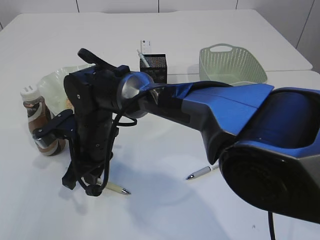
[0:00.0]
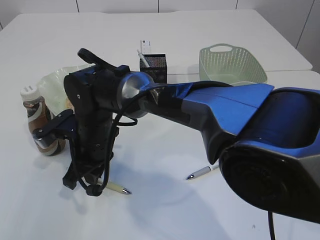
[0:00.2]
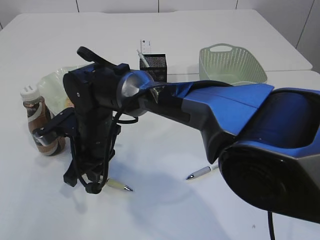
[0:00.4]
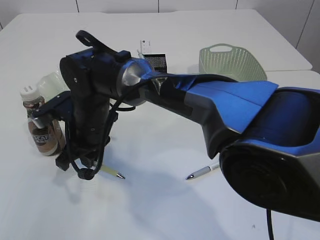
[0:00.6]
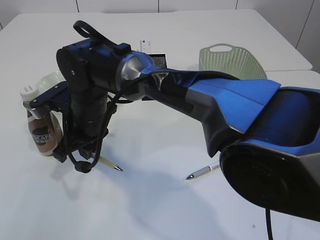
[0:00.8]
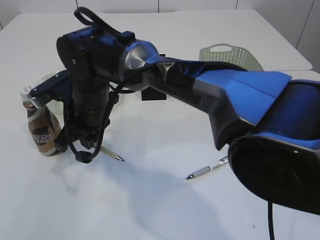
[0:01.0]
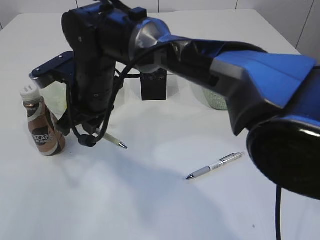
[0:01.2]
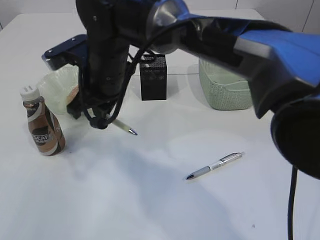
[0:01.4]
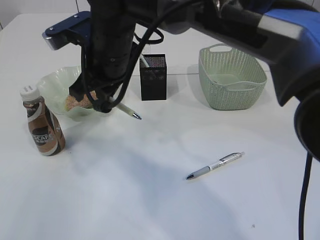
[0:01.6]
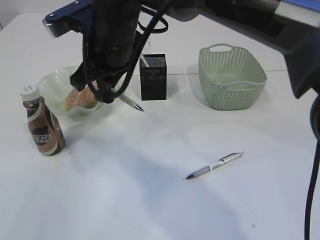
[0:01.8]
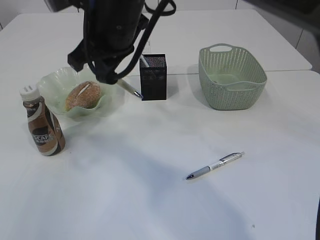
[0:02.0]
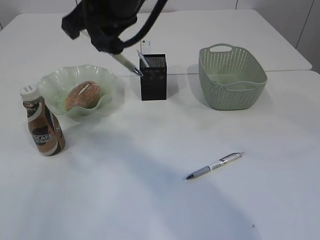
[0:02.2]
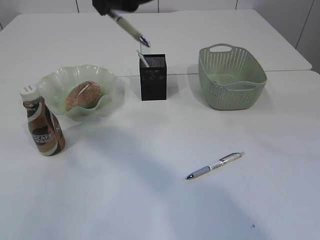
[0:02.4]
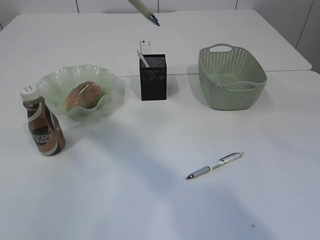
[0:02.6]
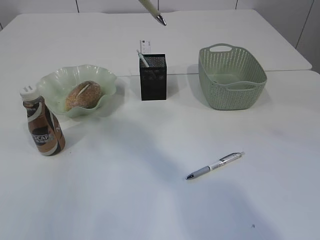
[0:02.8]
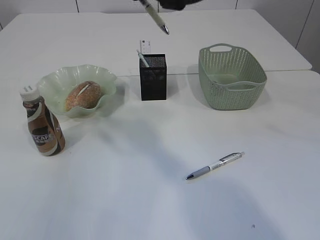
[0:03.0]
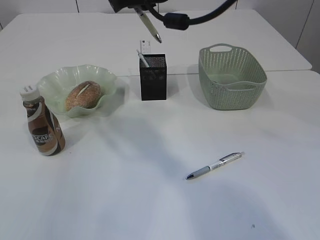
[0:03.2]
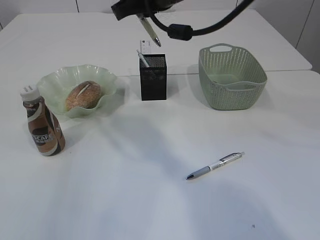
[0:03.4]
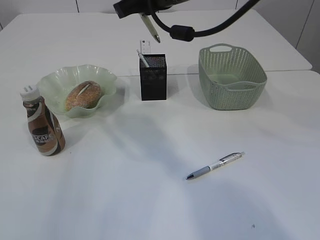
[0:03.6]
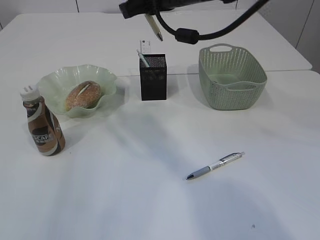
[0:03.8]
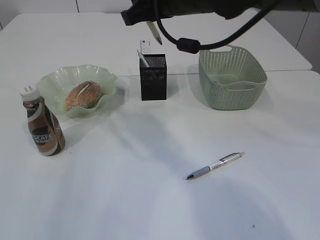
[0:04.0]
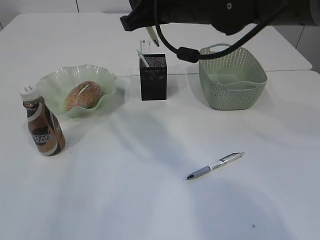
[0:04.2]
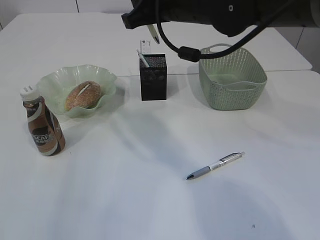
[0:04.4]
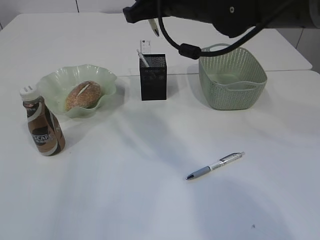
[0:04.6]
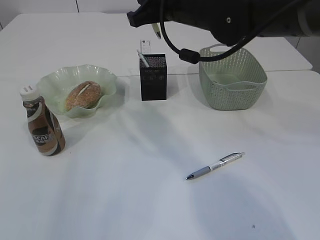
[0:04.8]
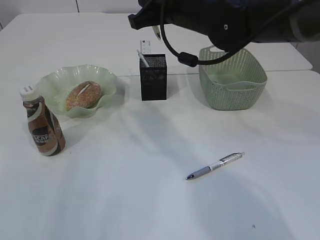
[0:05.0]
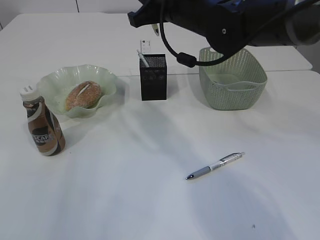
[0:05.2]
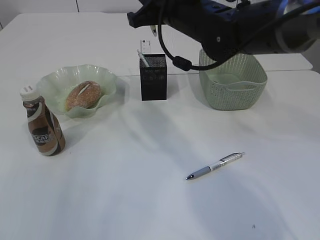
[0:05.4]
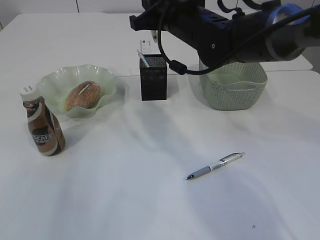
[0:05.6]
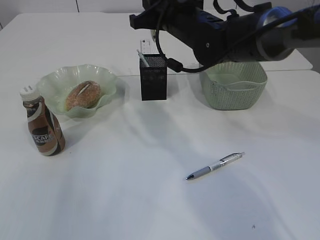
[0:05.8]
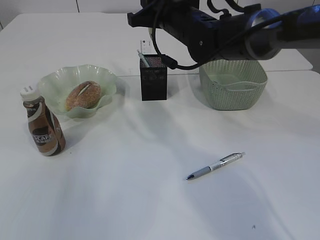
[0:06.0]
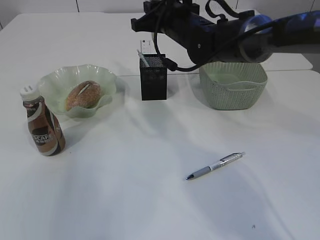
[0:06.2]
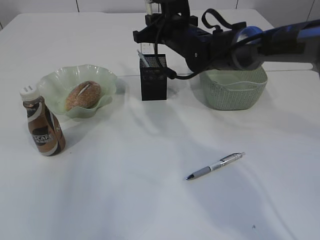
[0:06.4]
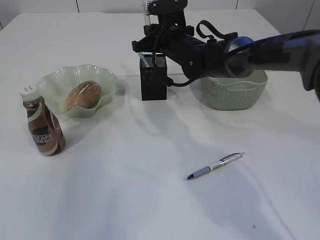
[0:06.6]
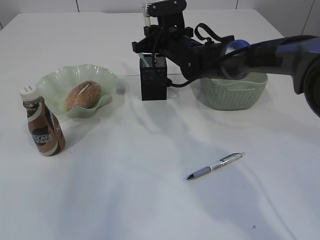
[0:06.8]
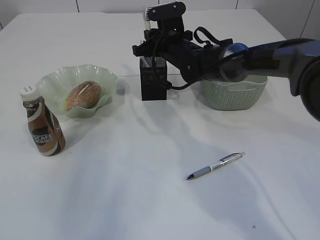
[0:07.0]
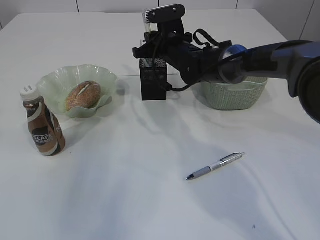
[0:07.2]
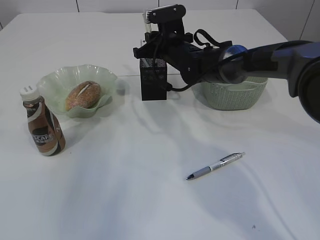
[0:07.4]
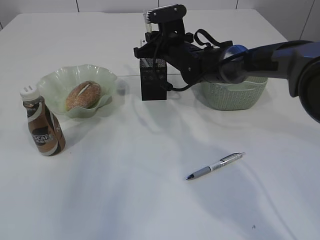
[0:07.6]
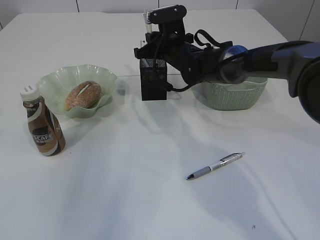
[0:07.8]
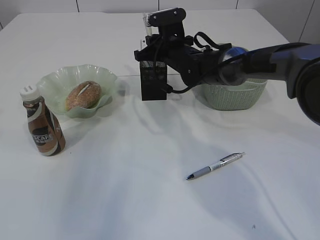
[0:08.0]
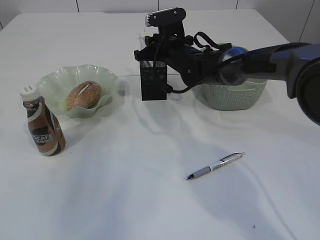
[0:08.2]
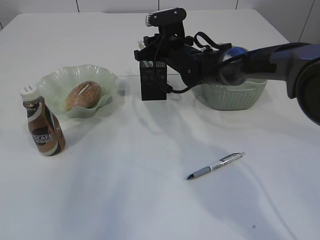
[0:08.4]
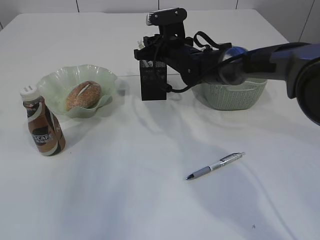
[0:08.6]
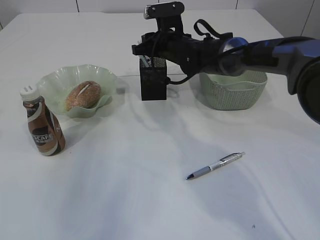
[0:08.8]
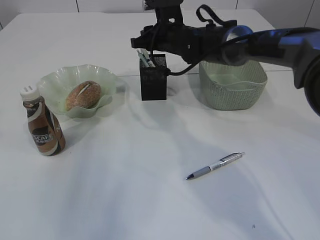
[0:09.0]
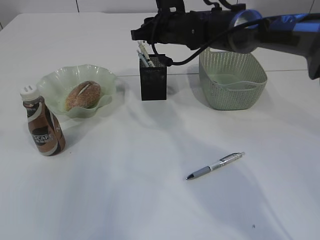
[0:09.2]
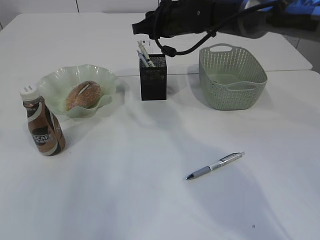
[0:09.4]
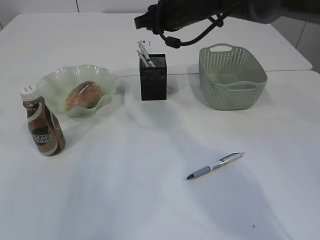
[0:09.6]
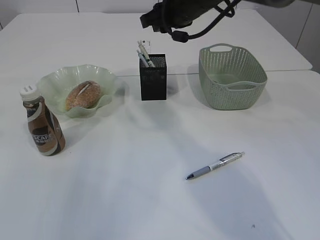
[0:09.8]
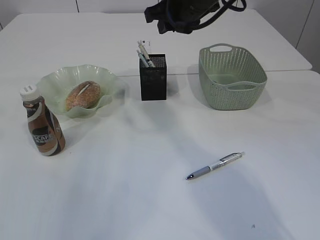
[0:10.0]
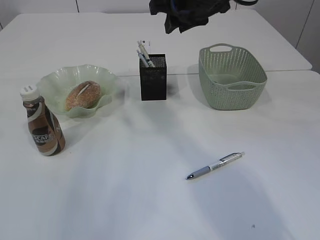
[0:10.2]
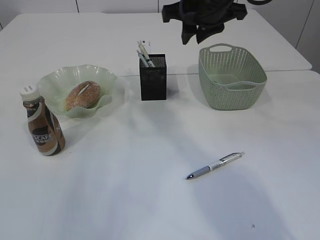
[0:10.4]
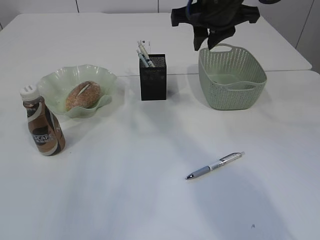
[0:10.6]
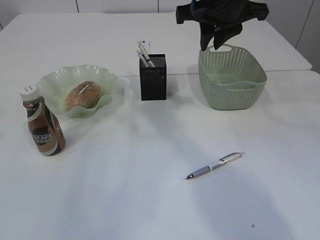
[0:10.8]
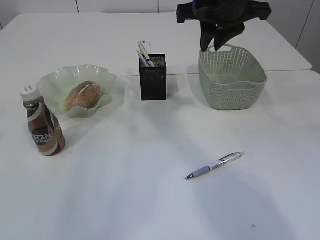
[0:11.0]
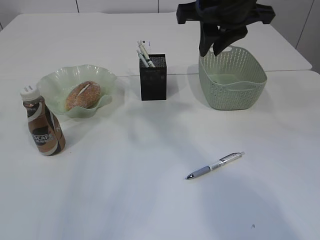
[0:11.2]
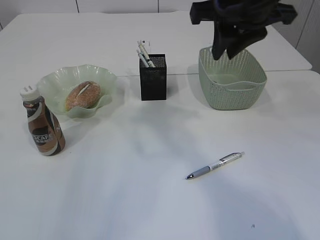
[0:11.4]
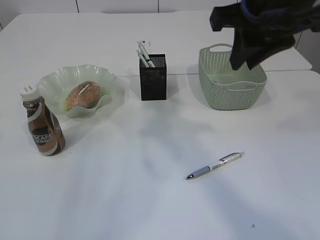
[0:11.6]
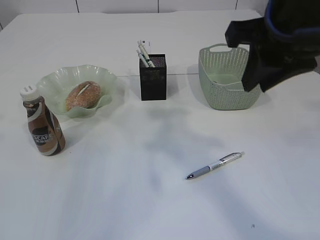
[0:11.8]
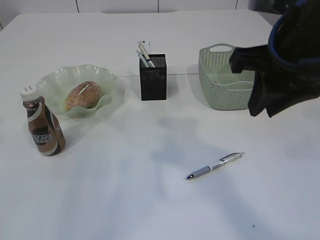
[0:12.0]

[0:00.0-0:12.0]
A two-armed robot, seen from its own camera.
Step, 0:01.6 to 0:09.2: Place the pen into the pen holder.
0:00.0 to 0:01.6: The right gripper is displaced upward by about 10 cm.
0:01.6 to 0:03.0: The right gripper shifts roughly 20 cm upward and to the right.
0:03.0 to 0:04.4: The right gripper shifts roughly 10 cm downward.
0:04.4 to 0:06.0: The right gripper moves forward and downward, some 10 cm.
0:06.0 to 0:07.6: The right gripper goes some 10 cm downward and forward.
0:07.6 to 0:09.0: The grippers stay close to where they were, moving slightly.
0:09.0 to 0:10.4: The right gripper goes about 15 cm upward and backward.
0:10.4 to 0:12.0: The right gripper moves backward, roughly 15 cm.

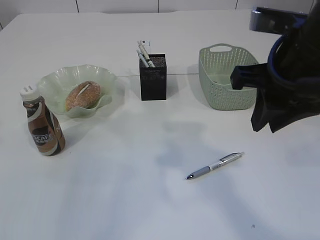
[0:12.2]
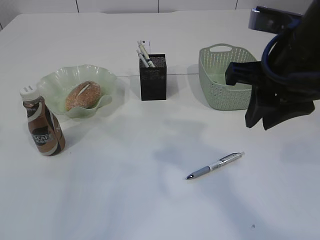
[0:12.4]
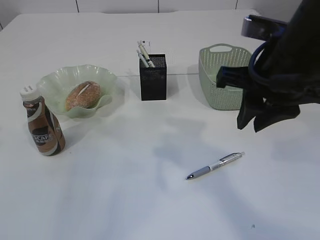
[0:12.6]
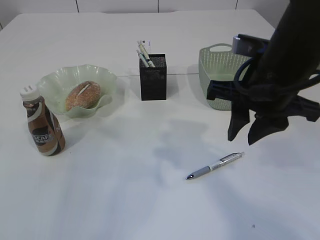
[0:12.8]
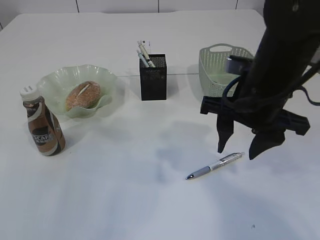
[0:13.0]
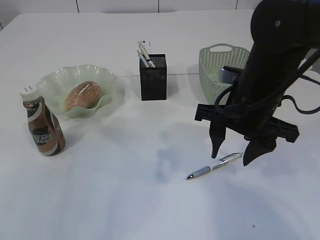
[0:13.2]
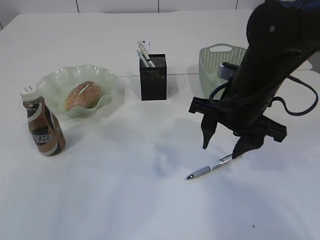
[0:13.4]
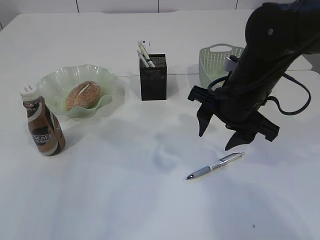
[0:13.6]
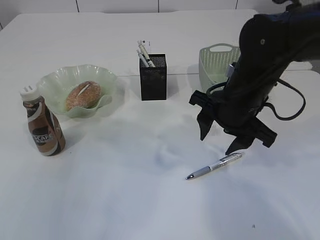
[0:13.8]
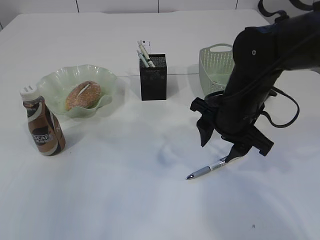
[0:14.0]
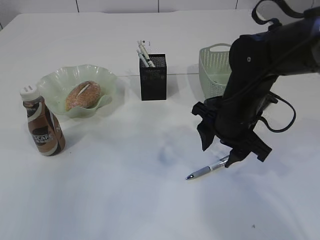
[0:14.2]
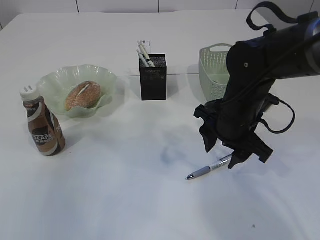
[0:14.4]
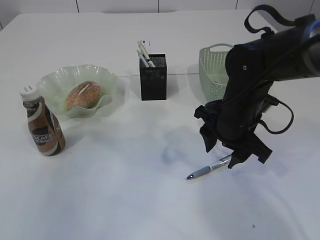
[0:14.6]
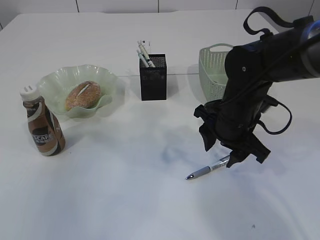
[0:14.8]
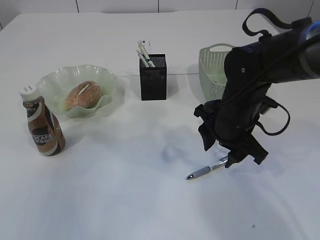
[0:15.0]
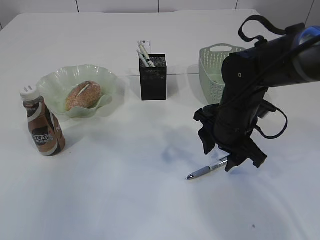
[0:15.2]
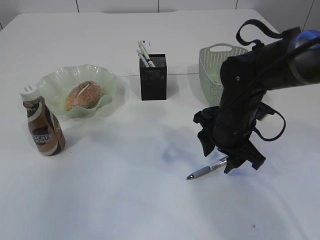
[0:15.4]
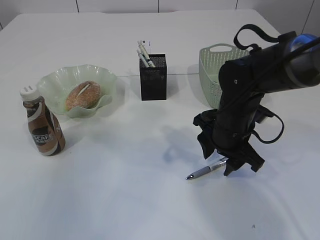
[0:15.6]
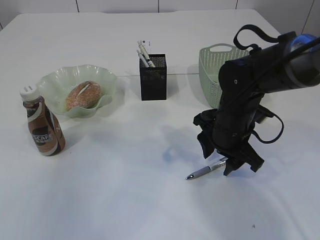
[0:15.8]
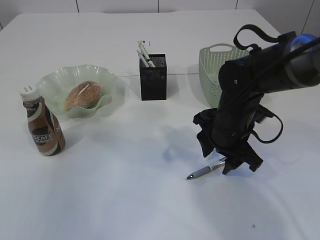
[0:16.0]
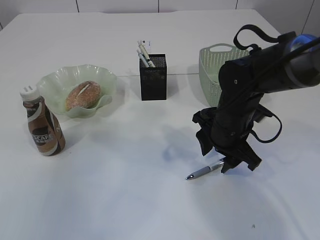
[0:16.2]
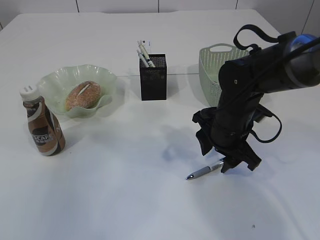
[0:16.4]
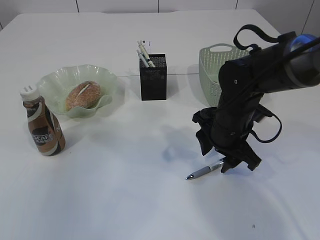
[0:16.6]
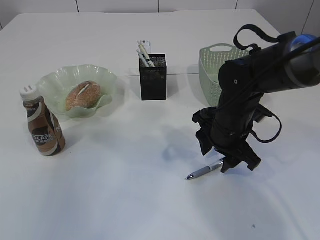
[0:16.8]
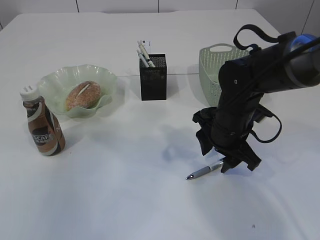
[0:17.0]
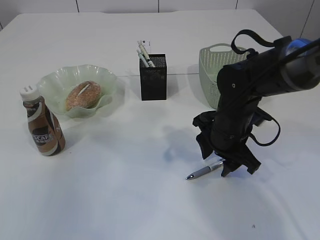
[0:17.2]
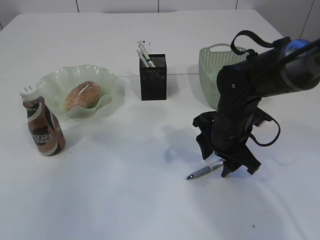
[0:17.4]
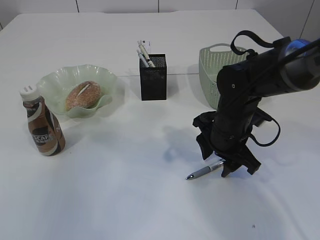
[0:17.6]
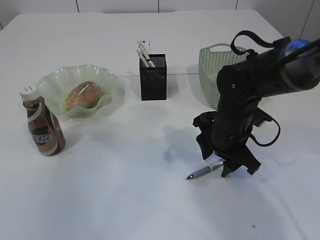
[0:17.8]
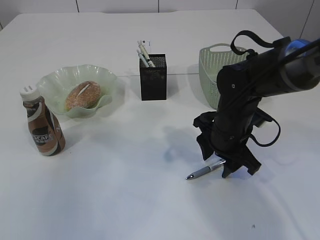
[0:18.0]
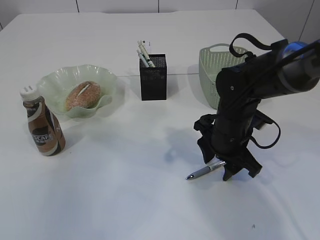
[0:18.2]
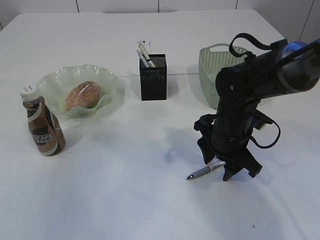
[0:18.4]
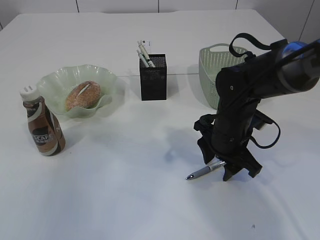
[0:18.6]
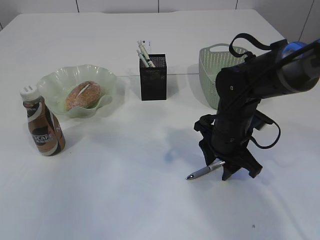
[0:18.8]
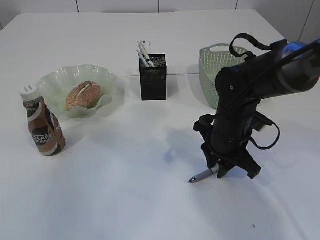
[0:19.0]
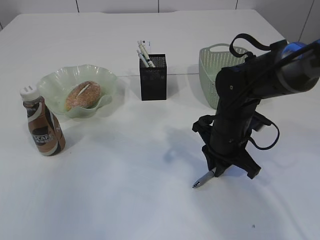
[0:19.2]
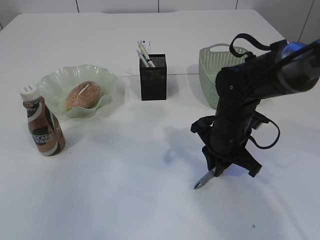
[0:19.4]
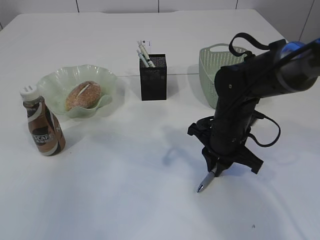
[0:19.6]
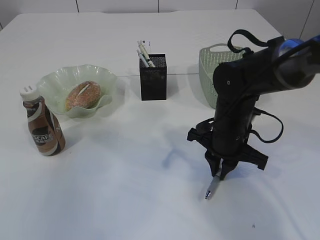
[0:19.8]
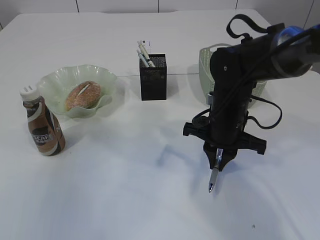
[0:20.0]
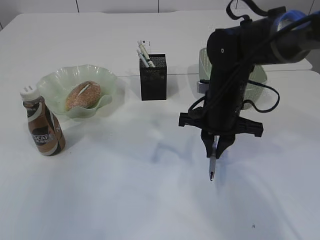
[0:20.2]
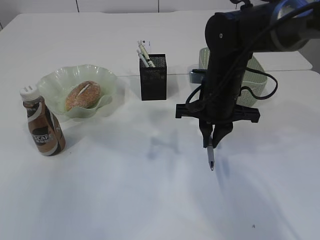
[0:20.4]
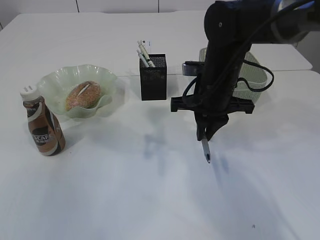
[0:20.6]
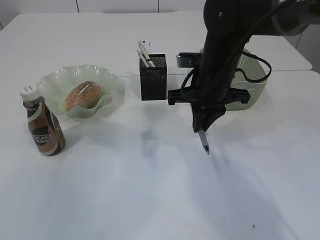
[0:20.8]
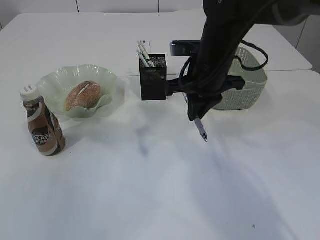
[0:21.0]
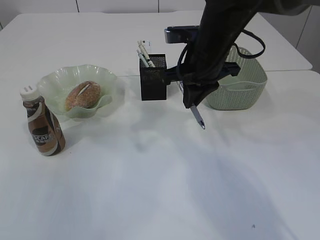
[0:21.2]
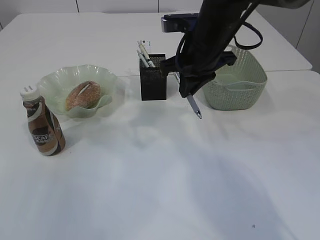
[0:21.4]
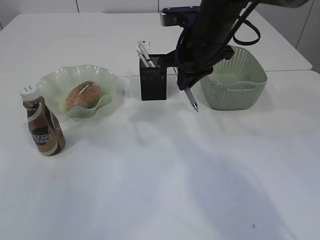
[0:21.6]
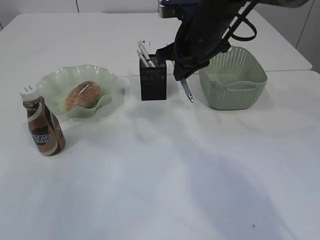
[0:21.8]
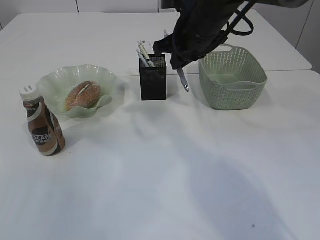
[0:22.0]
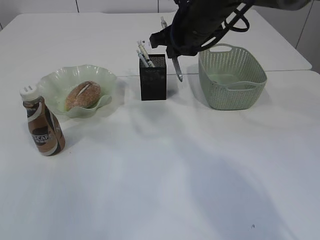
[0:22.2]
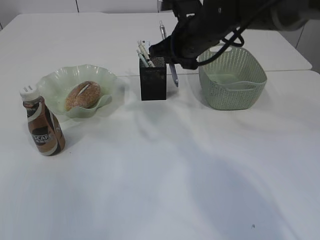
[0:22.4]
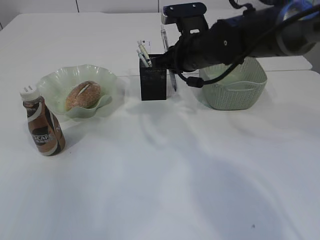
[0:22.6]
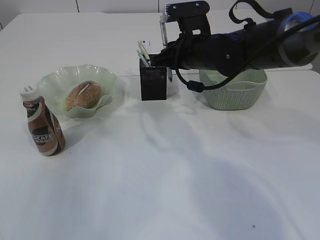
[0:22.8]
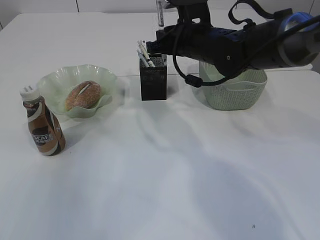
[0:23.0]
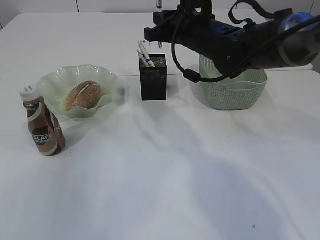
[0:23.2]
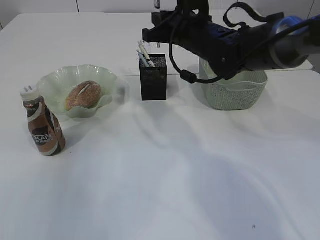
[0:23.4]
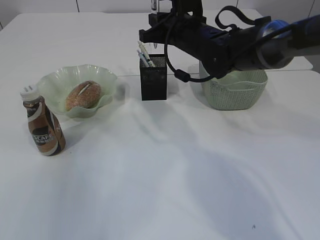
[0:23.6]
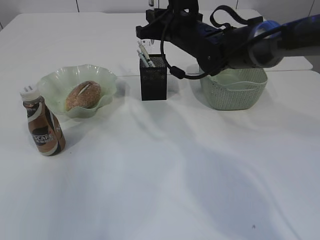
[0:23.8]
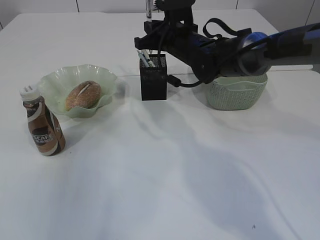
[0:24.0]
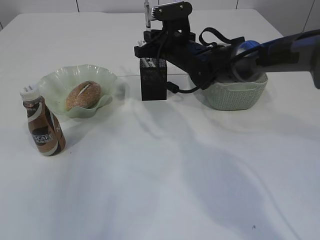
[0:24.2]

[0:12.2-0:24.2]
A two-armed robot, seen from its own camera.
Step, 0:12.2 to 0:20.4: Pick up the pen with right arm.
0:12.2 to 0:13.8: The right gripper shifts some 15 cm downward and forward, and opens its fingers.
0:13.8 to 0:15.2: The right gripper shifts roughly 5 cm downward.
0:15.2 to 0:16.6: There are only small adjustments of the grippers.
0:16.6 to 0:18.2: The two grippers keep their place.
0:18.2 to 0:19.8: The right gripper closes up.
0:19.8 to 0:21.2: The right gripper moves upward and forward, some 15 cm.
0:22.6 to 0:24.2: The right gripper shifts some 5 cm forward.
